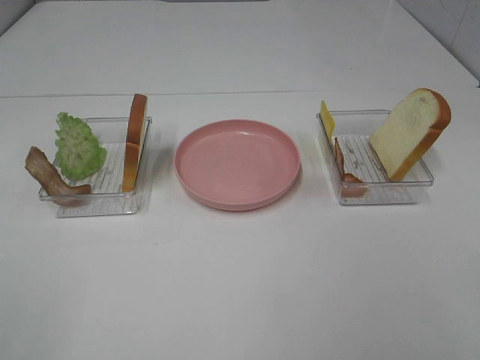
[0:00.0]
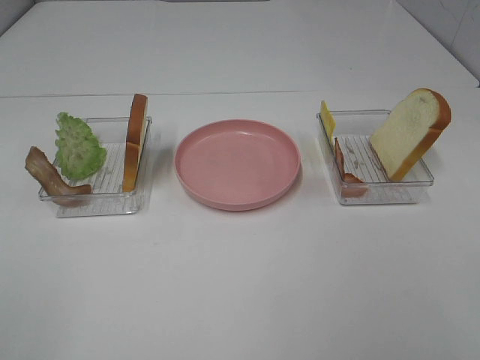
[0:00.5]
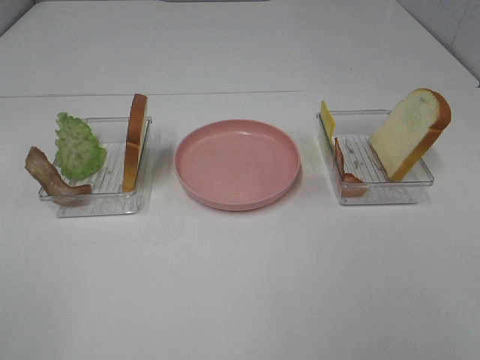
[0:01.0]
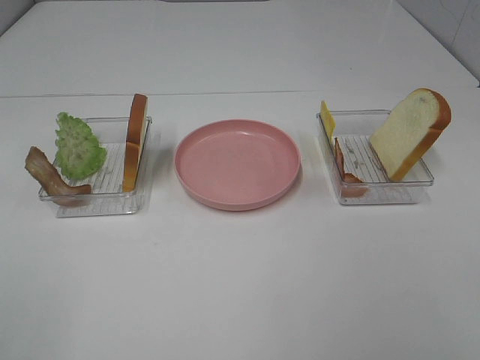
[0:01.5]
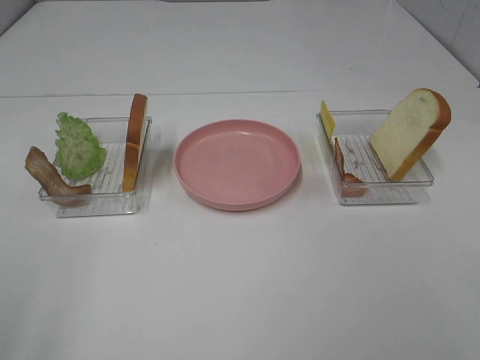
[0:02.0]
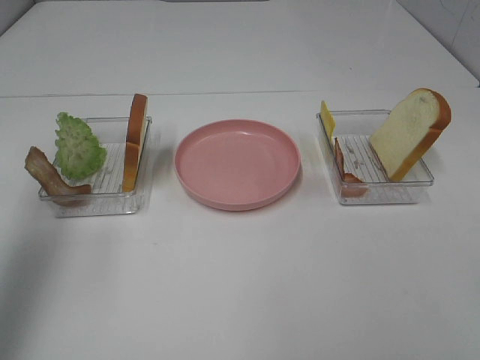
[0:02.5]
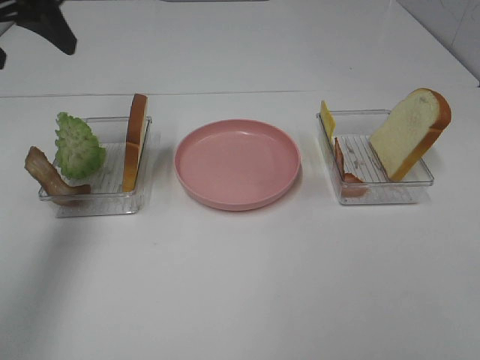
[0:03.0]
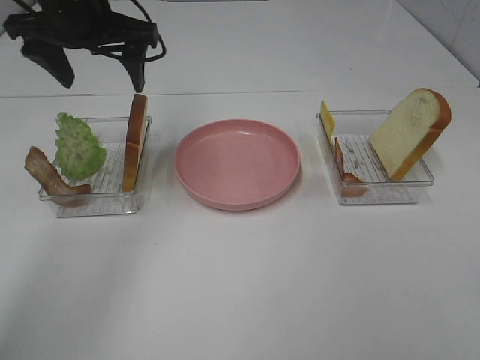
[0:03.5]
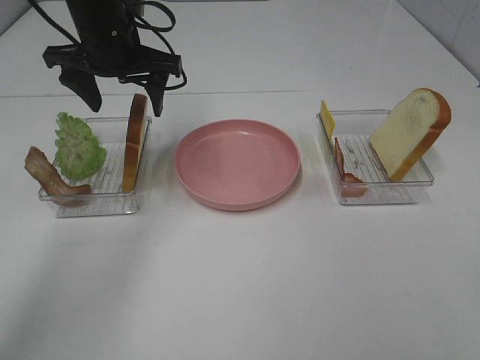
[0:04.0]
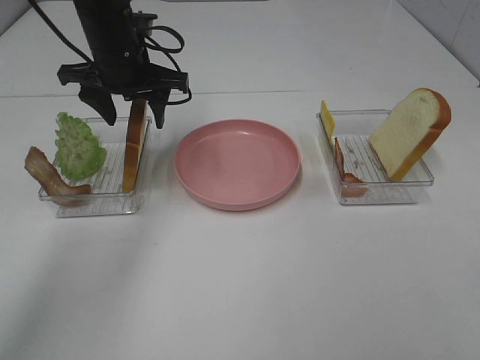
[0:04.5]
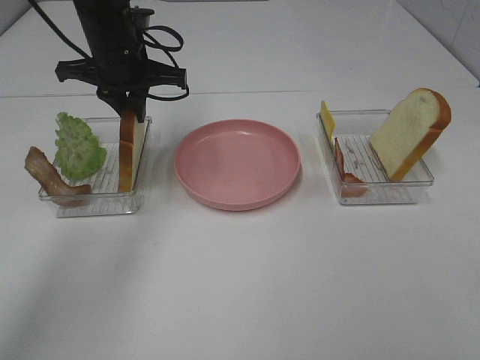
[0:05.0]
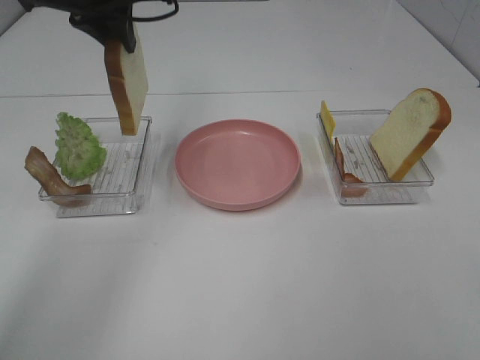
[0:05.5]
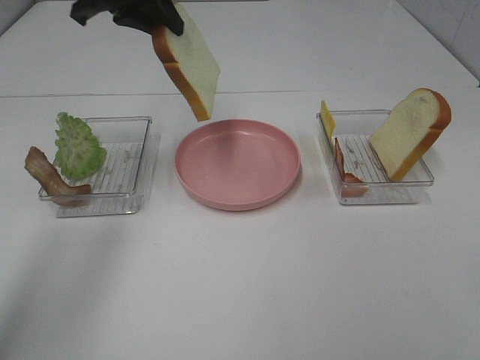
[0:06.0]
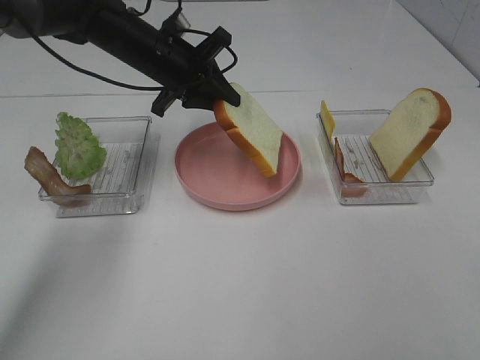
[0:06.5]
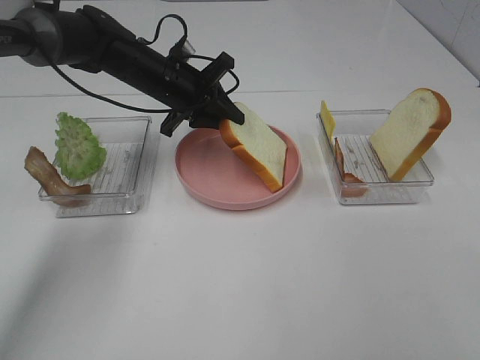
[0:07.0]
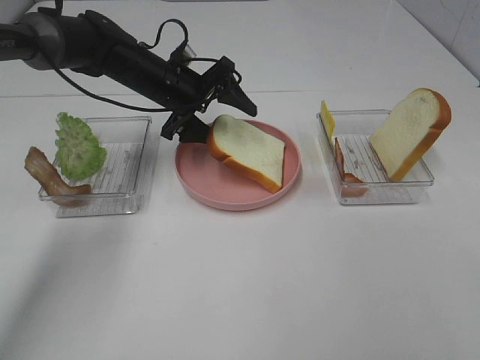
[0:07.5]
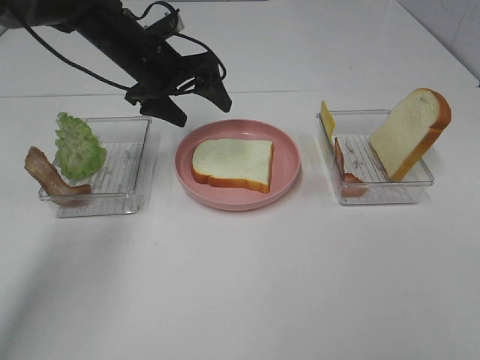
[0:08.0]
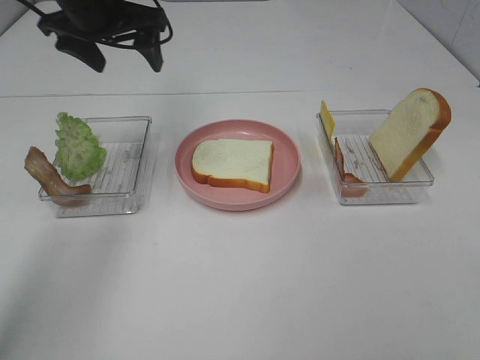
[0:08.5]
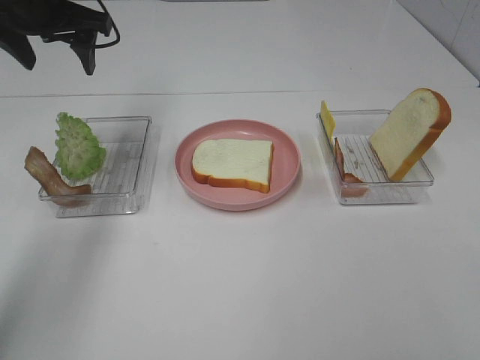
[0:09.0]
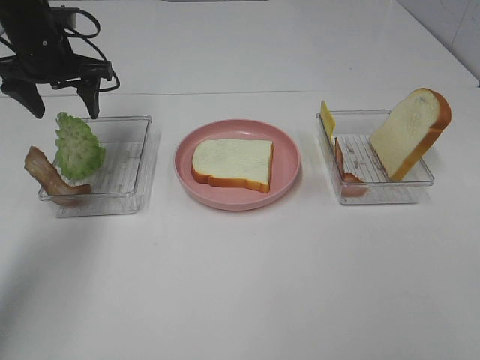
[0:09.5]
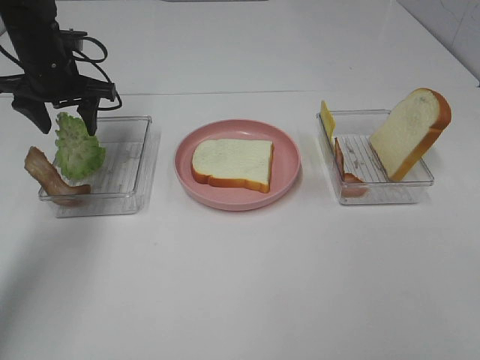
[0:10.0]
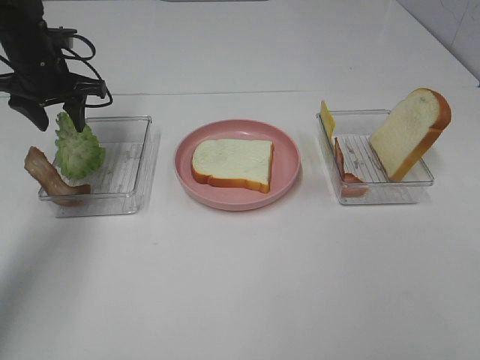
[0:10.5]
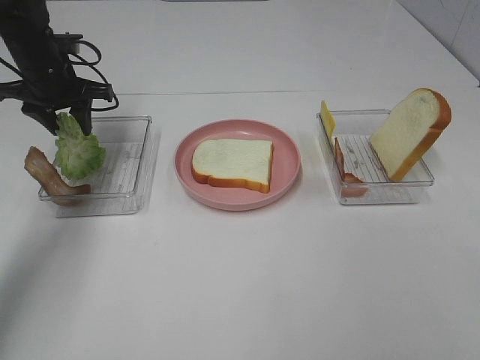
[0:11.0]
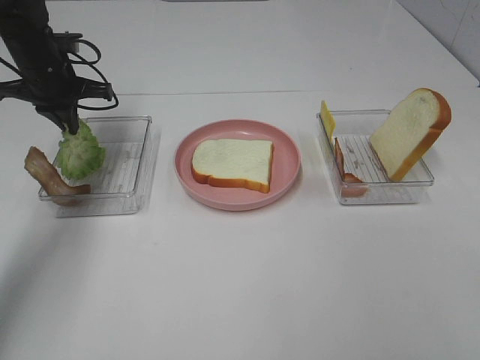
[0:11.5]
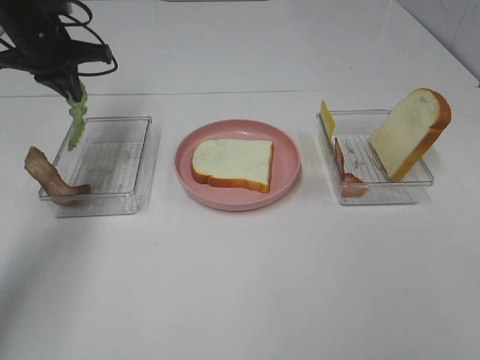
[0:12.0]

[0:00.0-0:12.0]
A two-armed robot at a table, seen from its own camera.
Task of the whole recording: Make sandwiches.
Step, 0:00.0 to 0:05.0: Left hand:grab the bread slice.
Step, 0:05.5 to 0:08.0: Left hand:place the bread slice on the plate.
Step, 0:08.5 to 0:11.5: Left hand:grab the lettuce slice.
0:02.0 to 0:04.0: The left gripper heads forward and to the right, covering some 40 cm.
0:04.0 to 0:06.0: The left gripper shifts about 5 cm upward, and closes up.
0:06.0 to 0:08.0: The left gripper travels downward by roughly 10 cm, and opens up.
0:08.0 to 0:10.0: The left gripper travels to the left by approximately 10 cm.
0:10.0 to 0:12.0: The left gripper closes up.

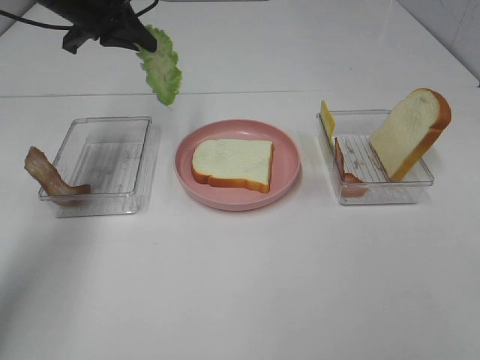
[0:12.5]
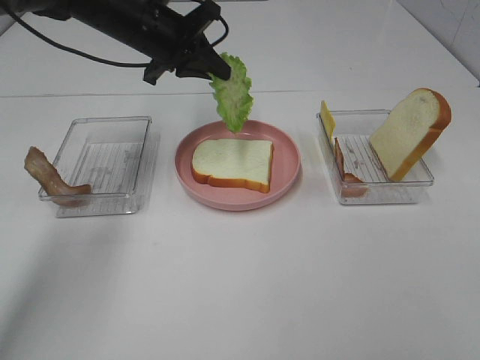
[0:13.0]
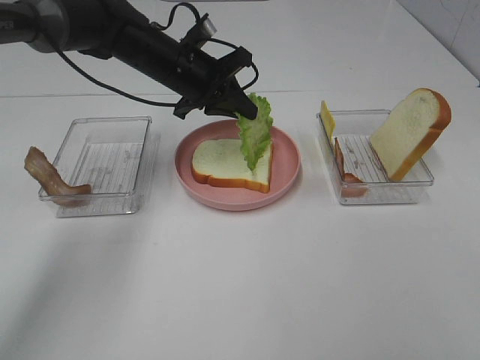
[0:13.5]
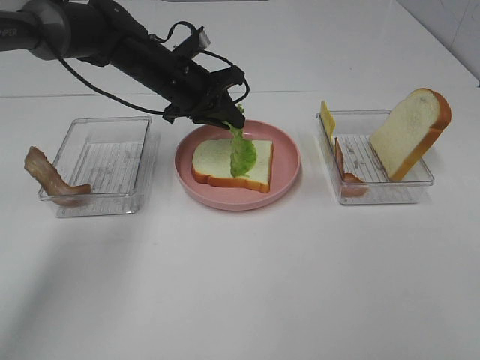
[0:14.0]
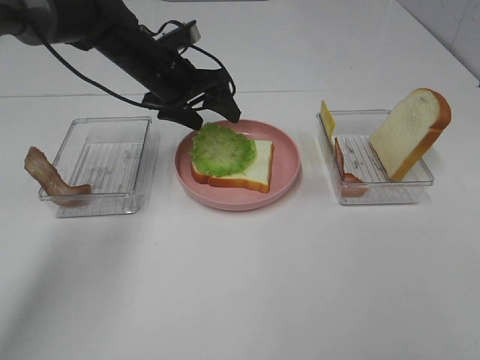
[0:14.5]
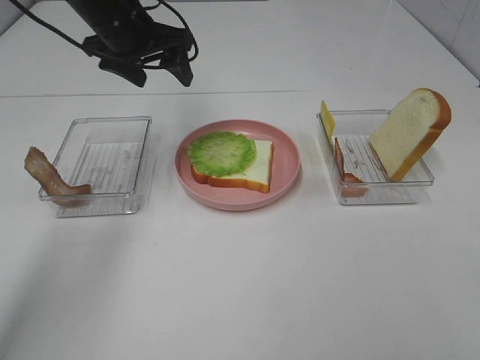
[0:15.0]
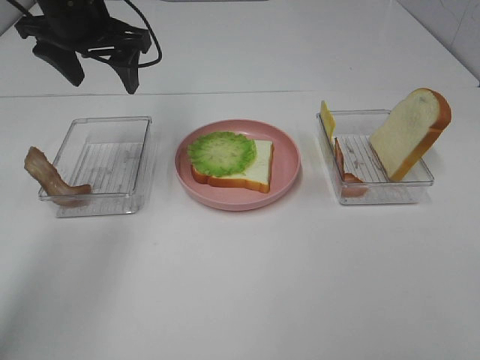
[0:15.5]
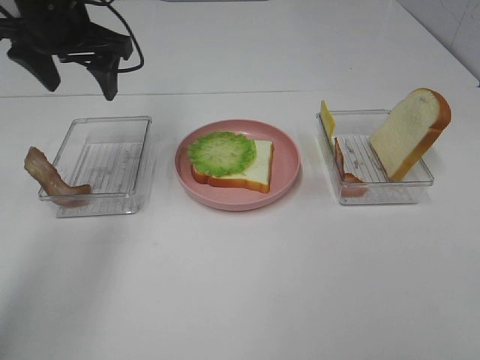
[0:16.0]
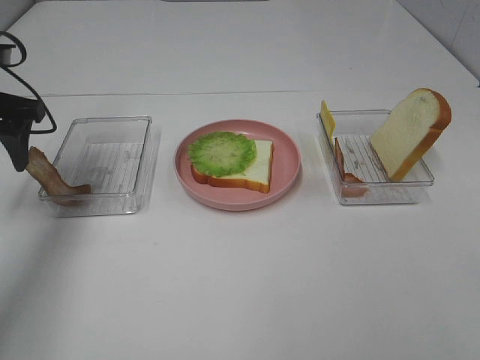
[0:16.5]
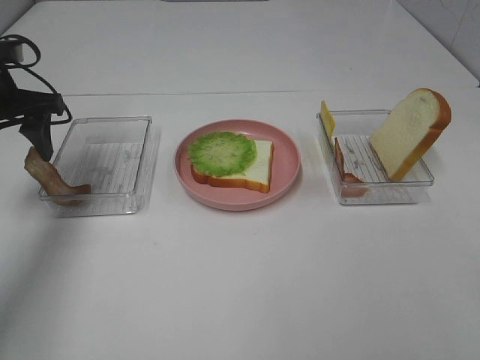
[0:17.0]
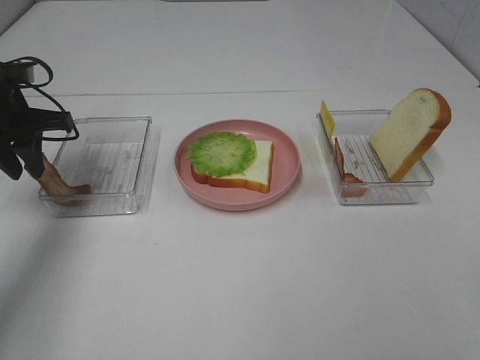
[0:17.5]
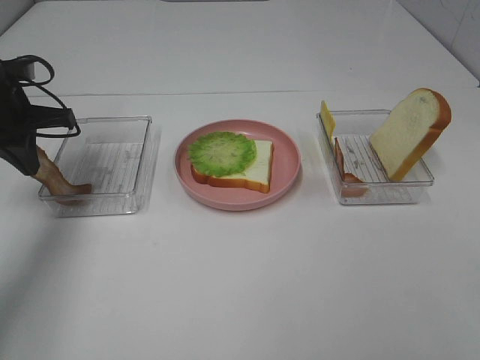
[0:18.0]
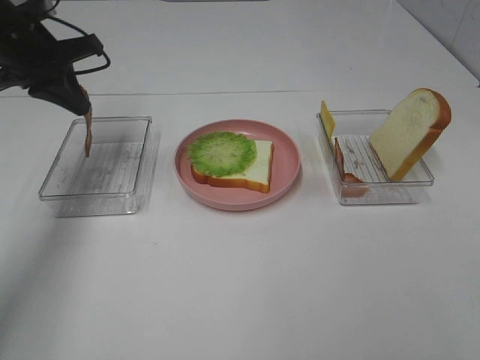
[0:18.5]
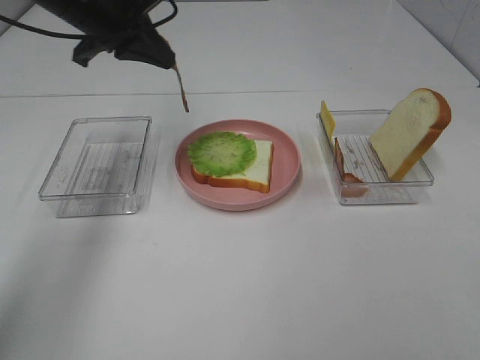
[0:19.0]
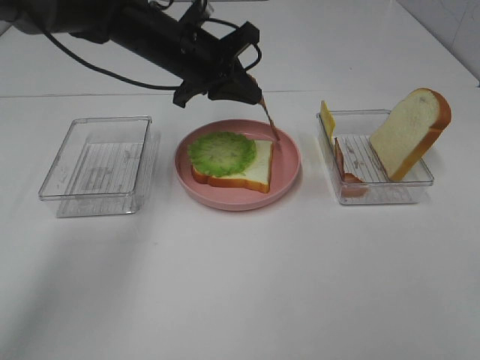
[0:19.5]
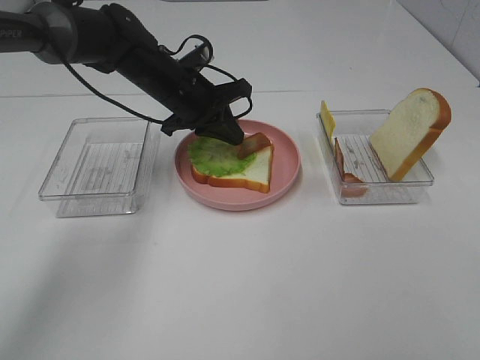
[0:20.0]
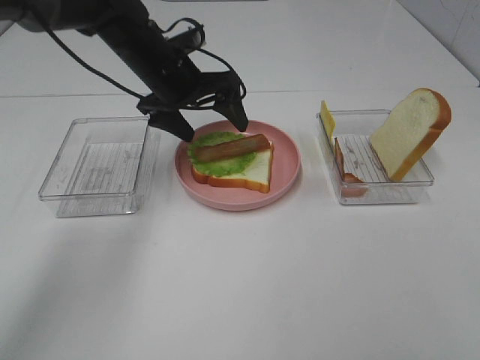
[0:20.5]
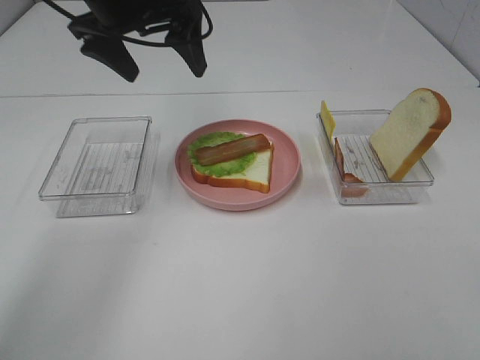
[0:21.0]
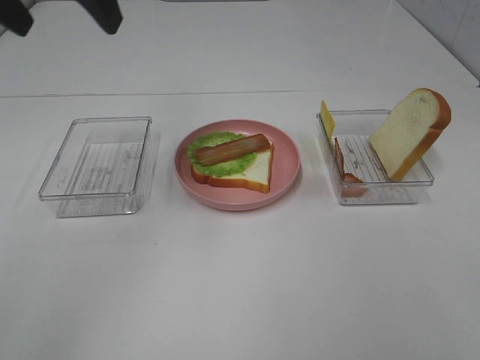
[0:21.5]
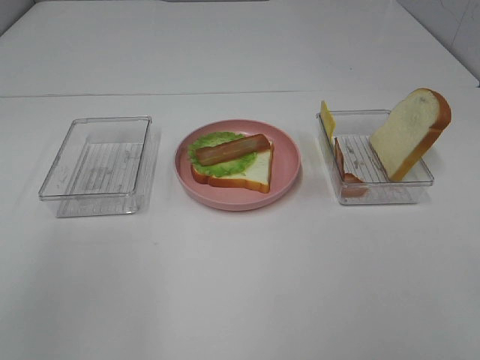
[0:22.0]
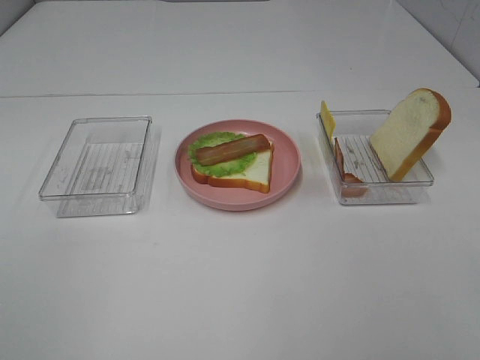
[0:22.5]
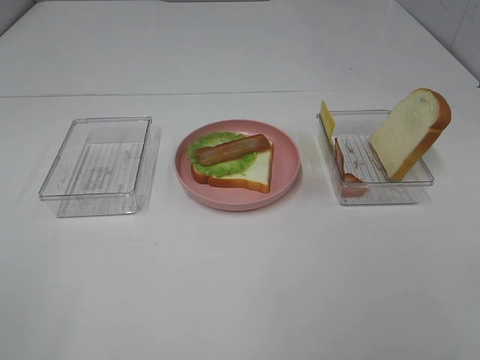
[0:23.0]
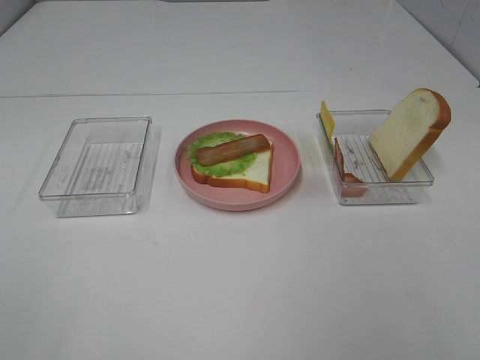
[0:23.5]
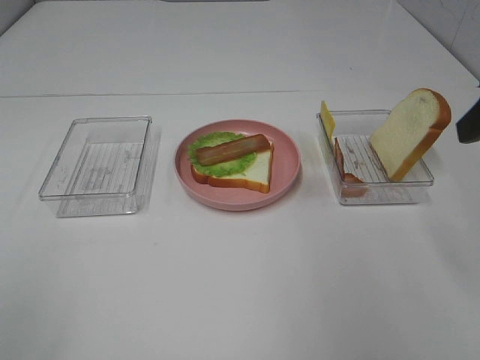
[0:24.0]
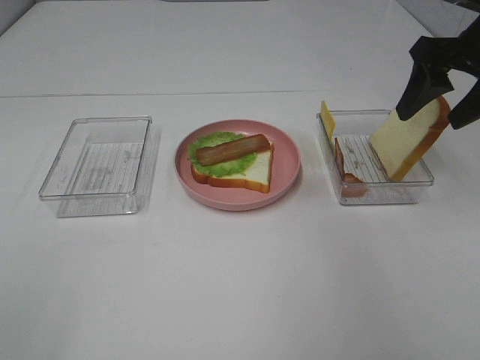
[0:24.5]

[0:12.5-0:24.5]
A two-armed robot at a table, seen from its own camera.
Task of the whole recording: Make sandwiches.
Step, 0:12.5 to 0:14.5: Left hand:place the lettuce slice on the bread slice.
Step, 0:15.0 to 0:18.0: Left hand:grab the bacon.
Step, 0:18.5 to 0:20.5: Left hand:place bacon on lettuce slice.
0:12.5 to 0:14.5: The left gripper moves to the right and downward, approximately 15 cm, and opens its fingers.
0:14.5 to 0:16.5: The left gripper heads to the left and backward, covering some 20 cm.
0:16.5 to 0:18.5: The left gripper is displaced forward by roughly 5 cm, and closes its fingers.
0:18.5 to 0:20.5: The left gripper goes roughly 15 cm to the right, and opens its fingers.
0:20.5 to 0:22.5: The left gripper travels backward and to the left by some 50 cm.
0:22.5 to 0:24.5: The right gripper is displaced forward by about 35 cm.

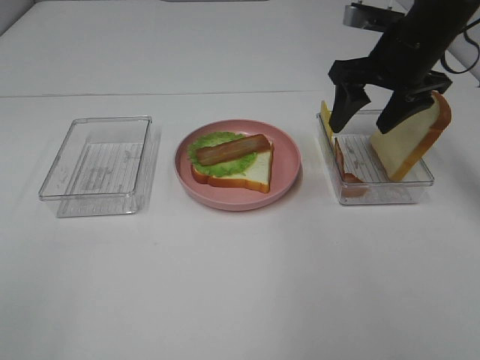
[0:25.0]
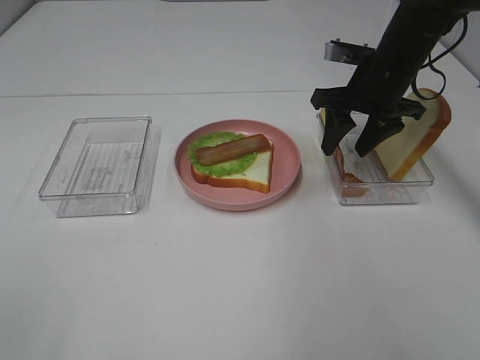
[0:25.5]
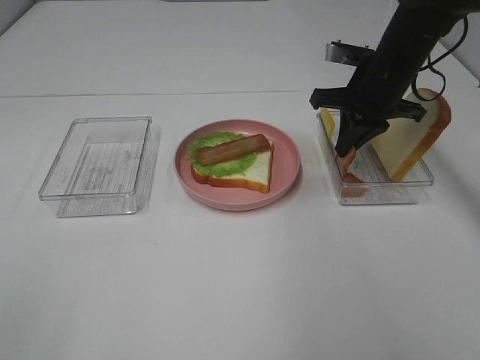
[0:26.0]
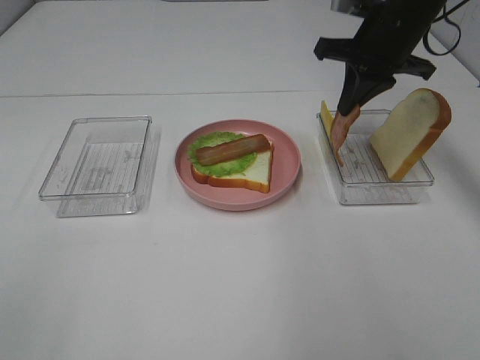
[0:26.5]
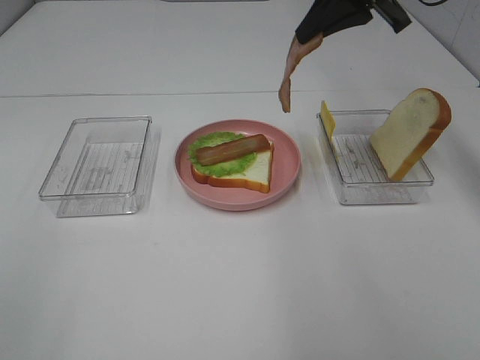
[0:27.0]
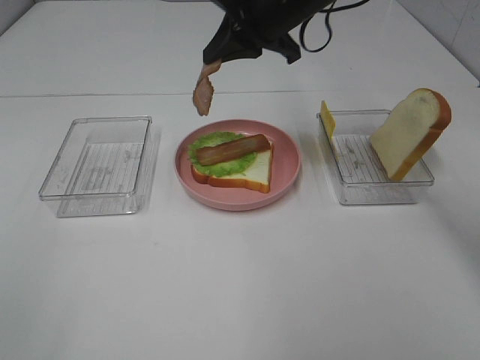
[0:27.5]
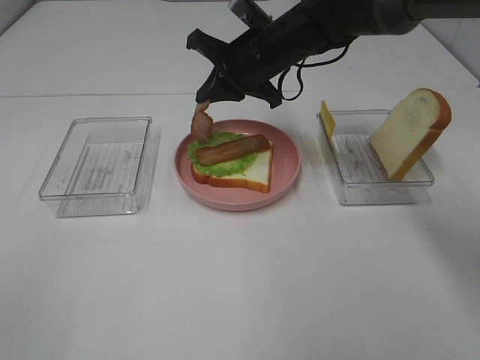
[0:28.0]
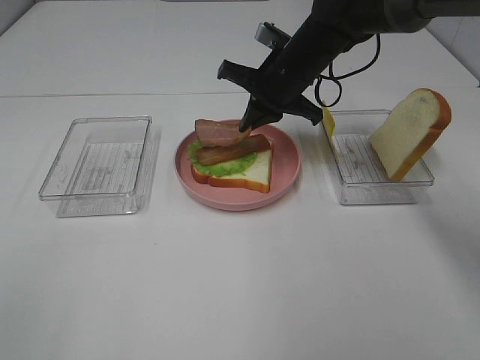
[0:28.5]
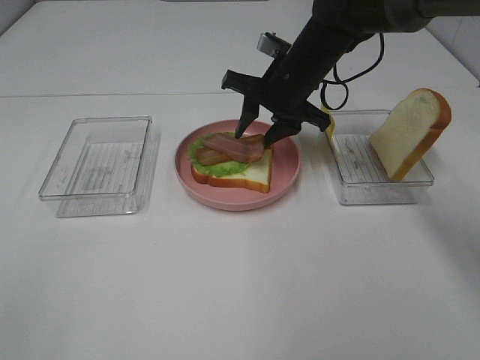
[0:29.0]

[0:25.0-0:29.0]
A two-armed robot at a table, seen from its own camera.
Task of the whole recording: Make sandwiches.
0:25.0 to 0:27.0: The right gripper shifts roughly 10 cm upward, and closes up.
0:27.0 to 0:29.0: The right gripper travels downward and to the left by some 20 cm, and opens its fingers.
